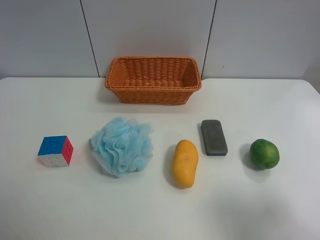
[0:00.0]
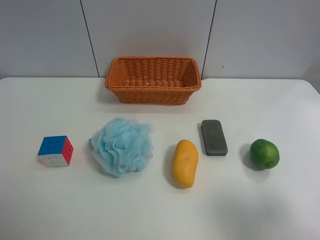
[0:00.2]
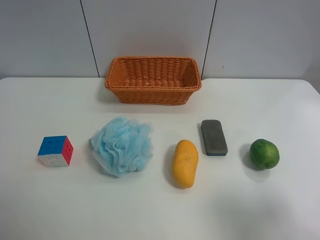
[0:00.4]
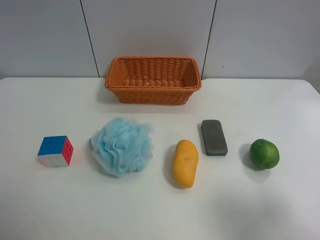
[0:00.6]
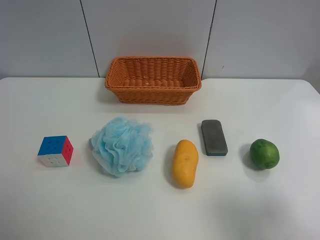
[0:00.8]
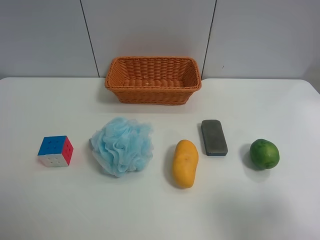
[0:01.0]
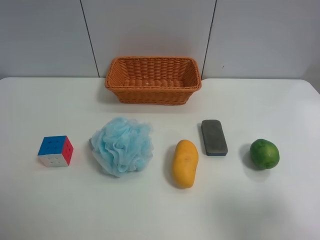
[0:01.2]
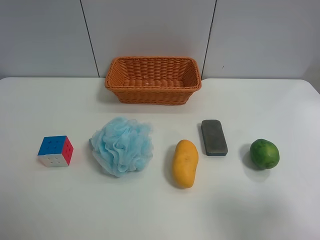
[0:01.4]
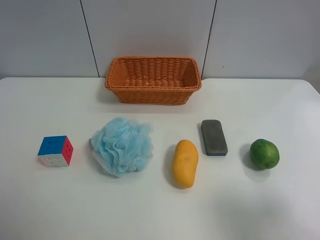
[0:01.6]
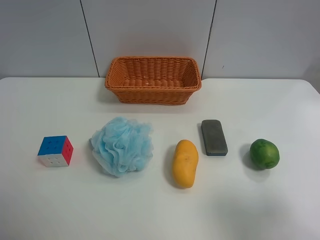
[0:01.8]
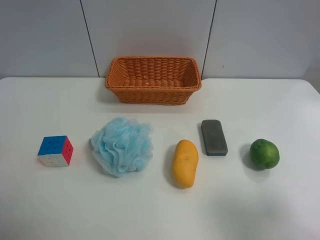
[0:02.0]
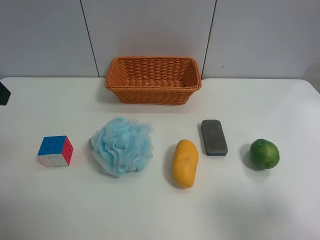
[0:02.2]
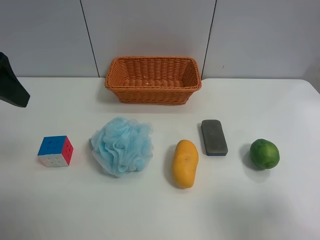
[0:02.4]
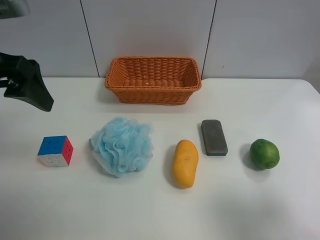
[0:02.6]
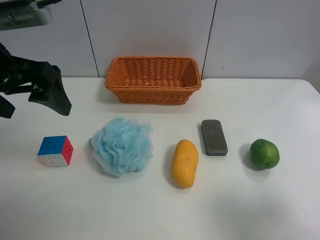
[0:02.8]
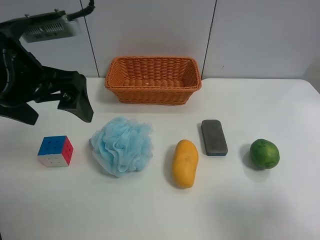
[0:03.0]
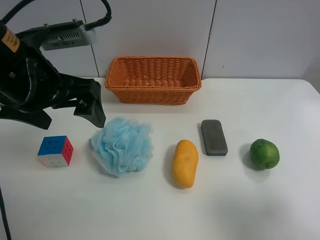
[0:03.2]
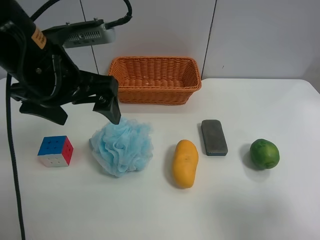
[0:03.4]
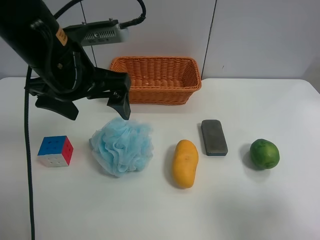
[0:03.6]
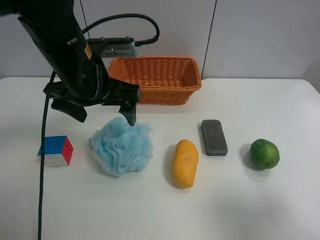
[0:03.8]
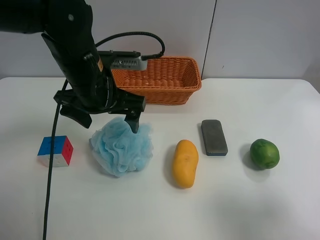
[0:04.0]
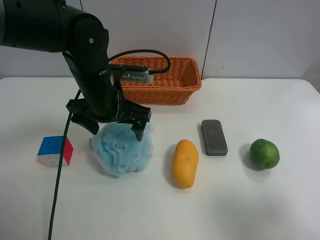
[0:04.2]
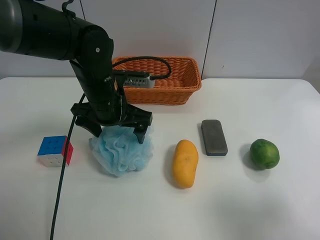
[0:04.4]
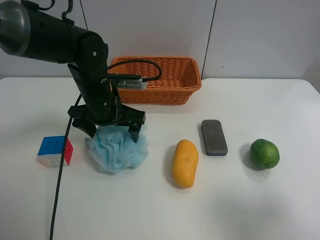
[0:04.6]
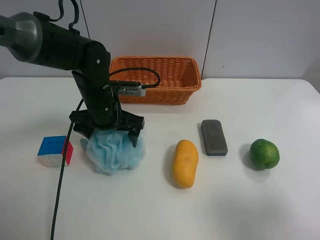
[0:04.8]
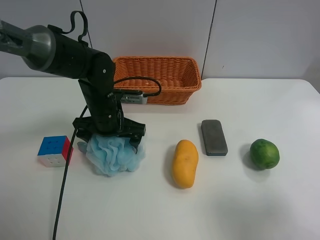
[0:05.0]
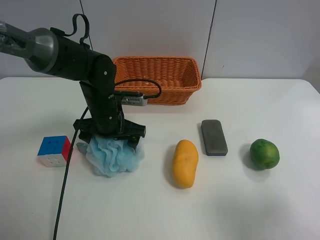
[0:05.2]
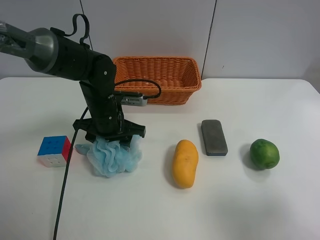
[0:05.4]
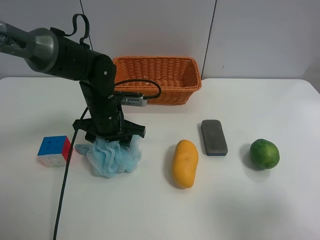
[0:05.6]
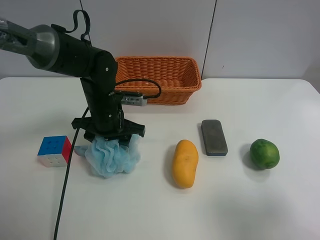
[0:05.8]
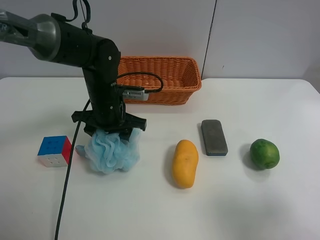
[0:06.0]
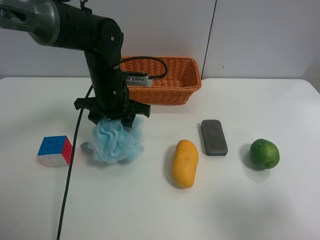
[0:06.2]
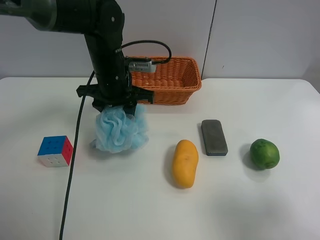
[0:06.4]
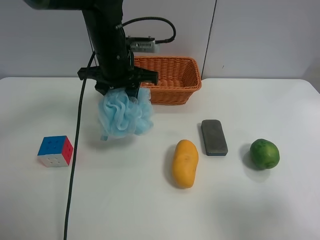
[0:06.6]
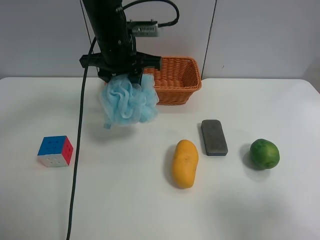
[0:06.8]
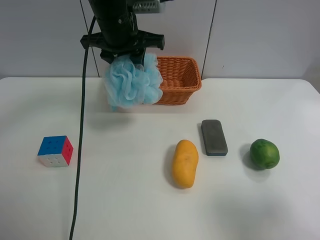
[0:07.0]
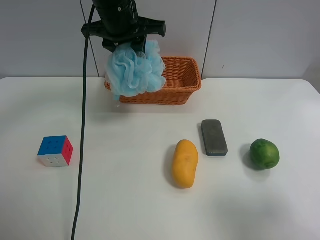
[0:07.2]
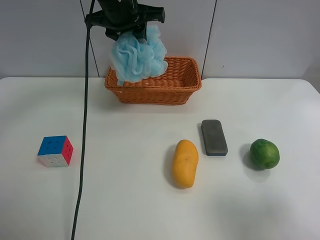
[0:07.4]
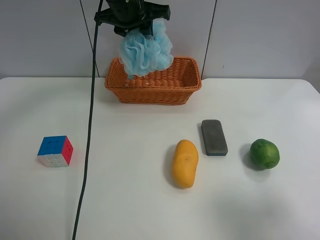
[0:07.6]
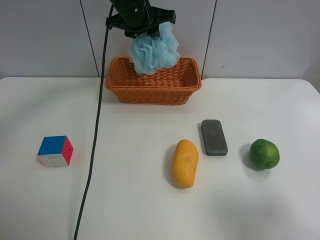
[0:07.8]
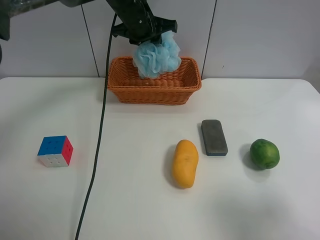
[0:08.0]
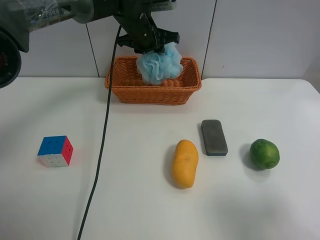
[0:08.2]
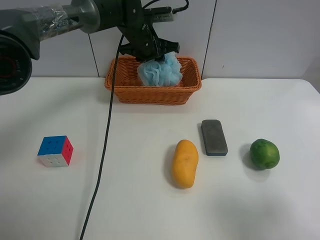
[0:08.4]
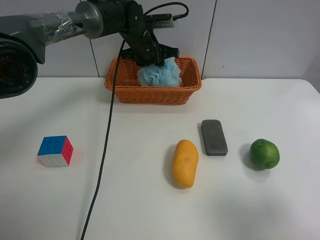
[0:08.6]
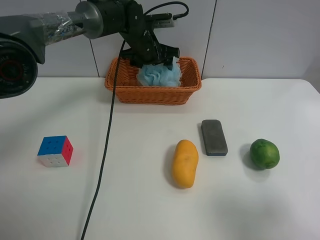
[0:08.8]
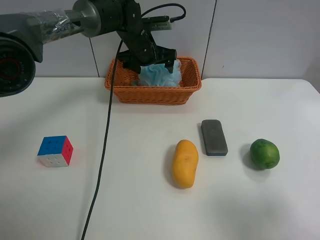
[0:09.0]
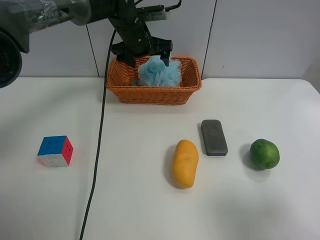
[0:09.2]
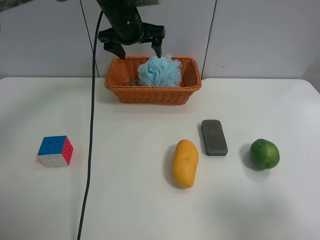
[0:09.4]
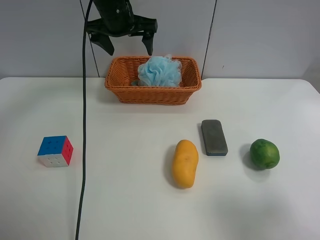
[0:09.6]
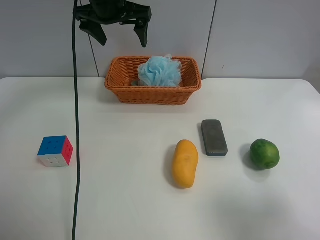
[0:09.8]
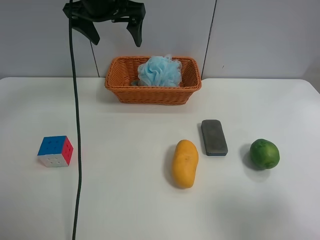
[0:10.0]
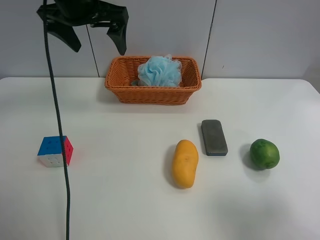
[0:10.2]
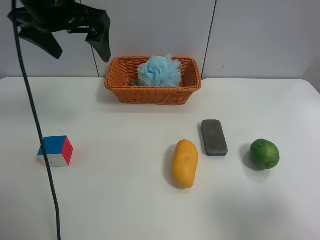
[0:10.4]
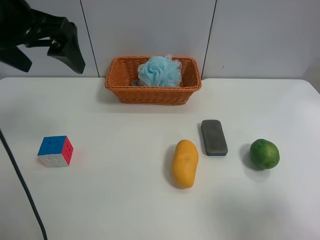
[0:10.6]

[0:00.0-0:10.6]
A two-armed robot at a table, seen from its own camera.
Task of the whole recording: use the left gripper to grab items from the table and place them in the basket.
Step, 0:00.0 to 0:05.6: Grasp the Shower puff with the left gripper.
Step, 0:05.8 to 0:09.2: Place the Shower puff into the basket with the left gripper.
0:01.6 to 0:03.0: The left gripper shifts some 20 cm forward, to the right and downward.
0:03.0 to 0:04.6: The left gripper goes about 20 cm downward, forward and to the right.
0:04.6 to 0:06.0: The left gripper closes up.
0:06.0 to 0:07.6: The left gripper moves upward and forward, about 20 cm.
0:07.6 to 0:09.0: The left gripper goes some 10 cm downward and forward, and opens up.
0:09.0 to 0:10.6: The left gripper travels backward, upward and to the left by roughly 30 cm.

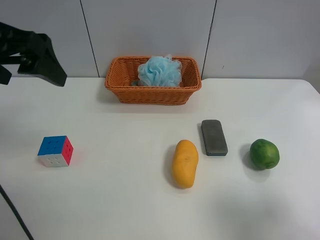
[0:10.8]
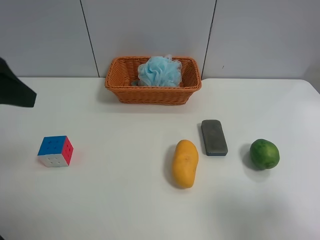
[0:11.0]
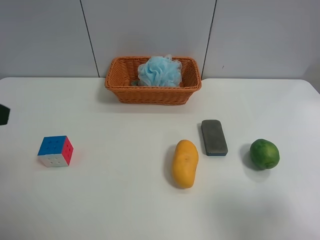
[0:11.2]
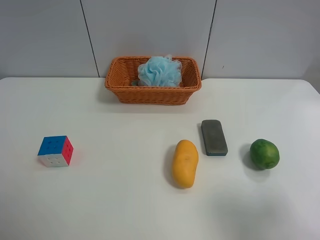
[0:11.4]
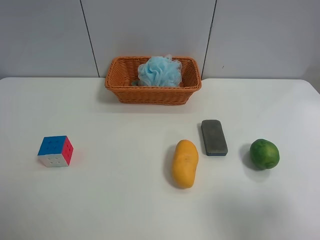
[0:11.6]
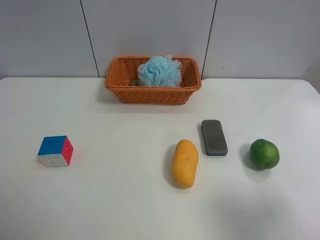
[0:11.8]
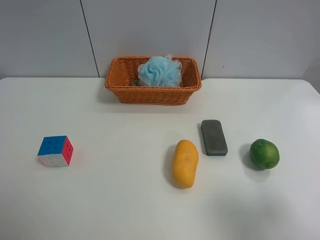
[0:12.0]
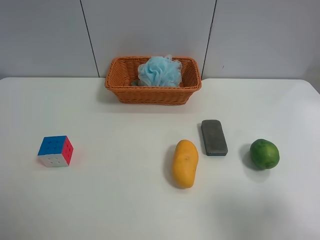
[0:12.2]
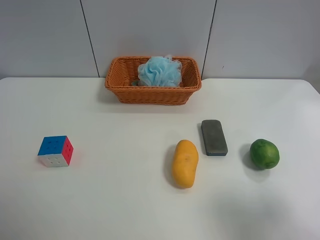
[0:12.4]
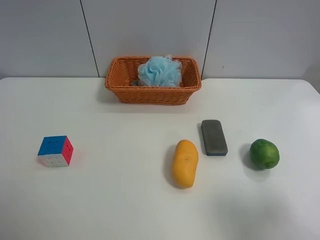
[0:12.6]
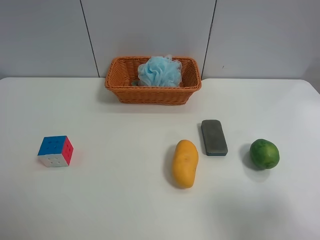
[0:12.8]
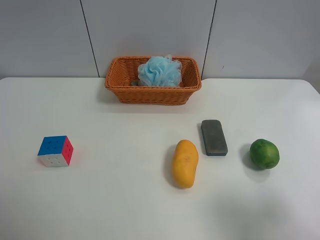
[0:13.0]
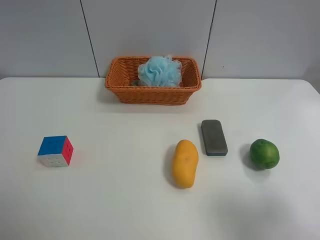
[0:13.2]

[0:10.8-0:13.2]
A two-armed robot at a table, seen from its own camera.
Task of the whole recording: use the left gripper to grab items from the table and place them in the basket.
0:10.8 to 0:12.0: The left gripper shifts some 20 cm backward and to the left.
